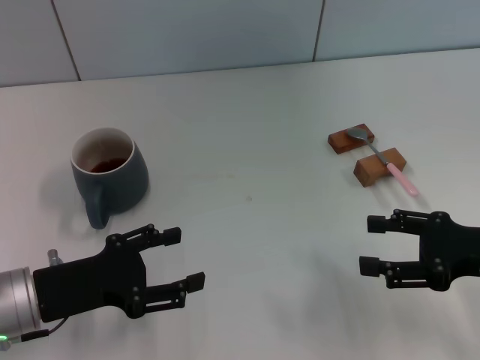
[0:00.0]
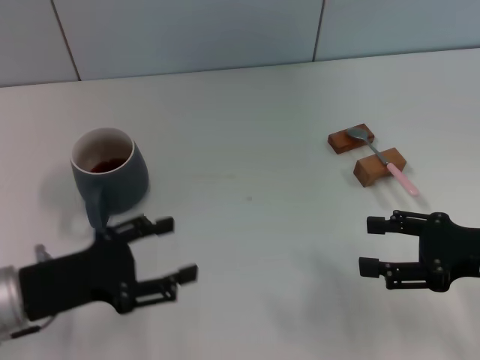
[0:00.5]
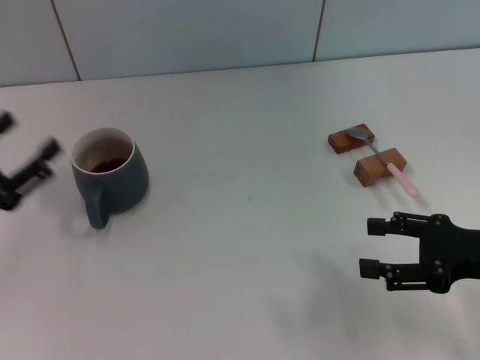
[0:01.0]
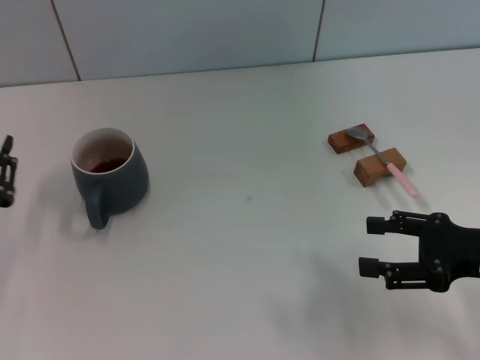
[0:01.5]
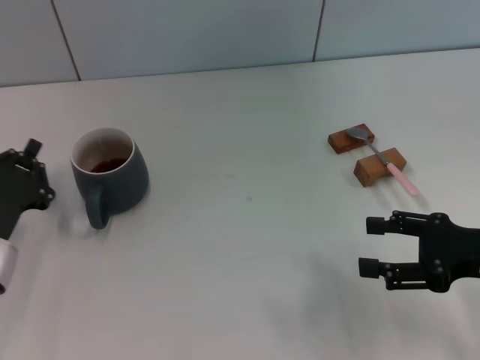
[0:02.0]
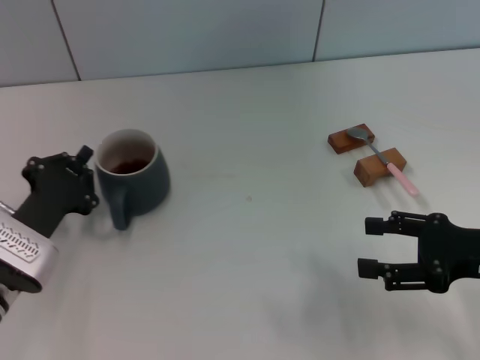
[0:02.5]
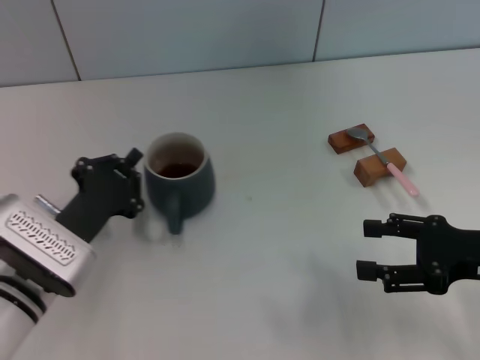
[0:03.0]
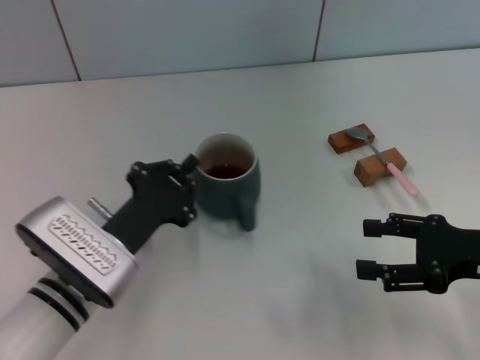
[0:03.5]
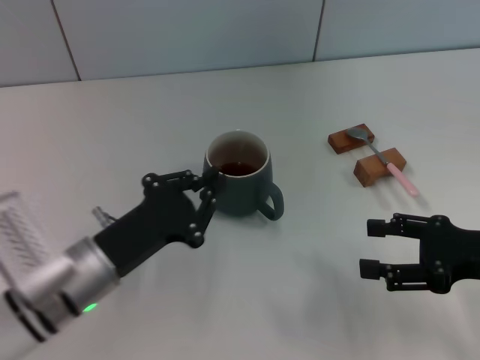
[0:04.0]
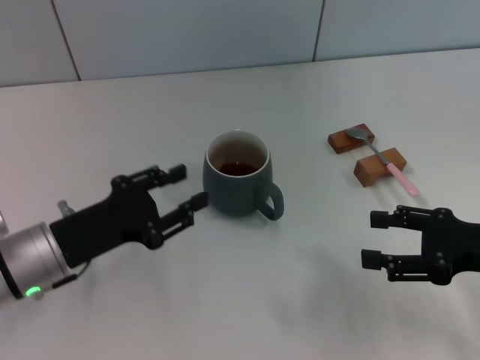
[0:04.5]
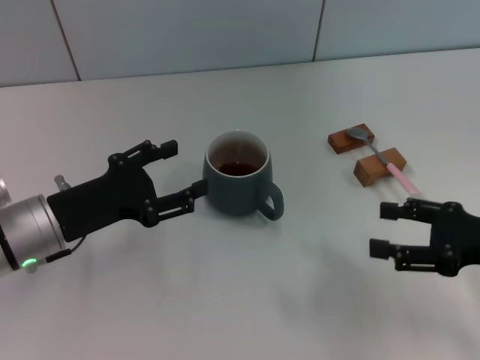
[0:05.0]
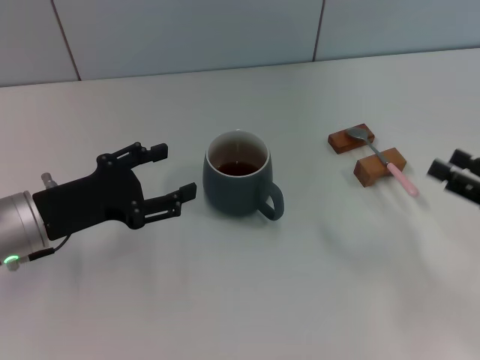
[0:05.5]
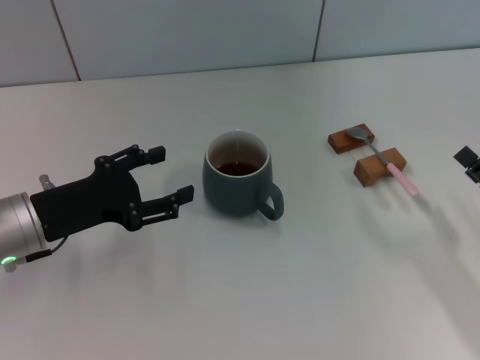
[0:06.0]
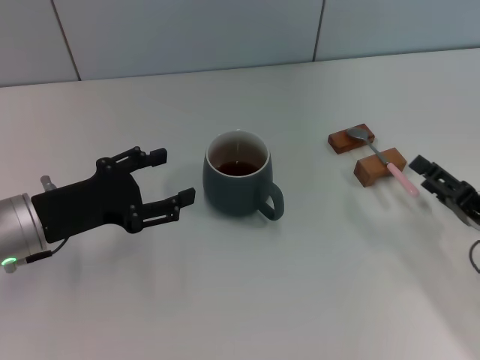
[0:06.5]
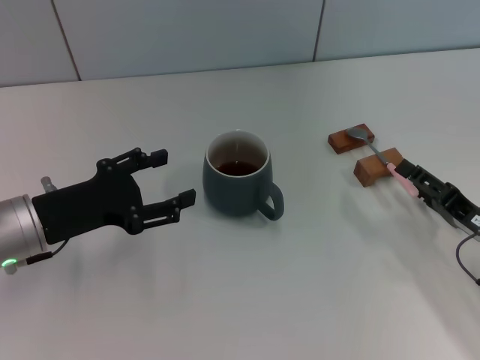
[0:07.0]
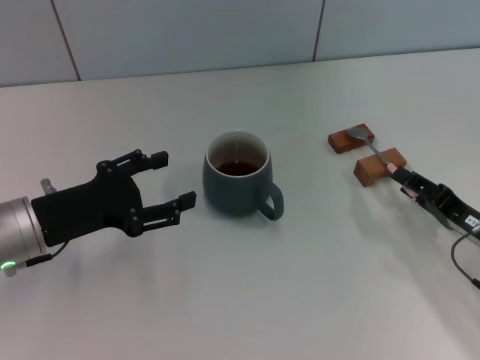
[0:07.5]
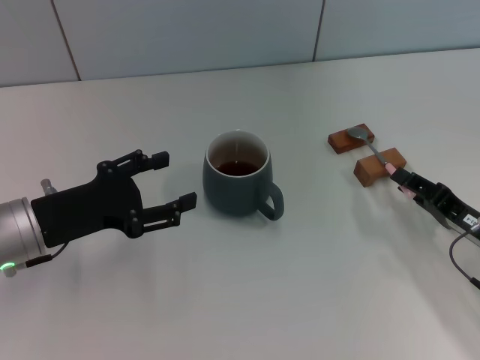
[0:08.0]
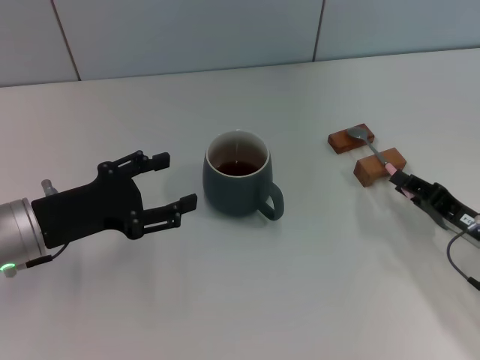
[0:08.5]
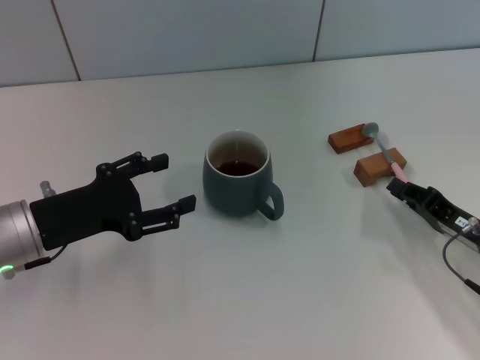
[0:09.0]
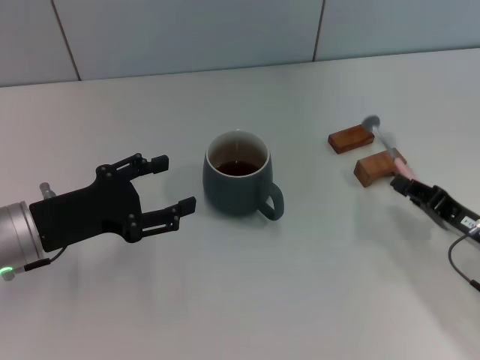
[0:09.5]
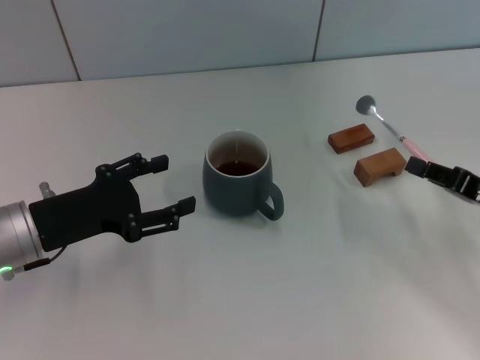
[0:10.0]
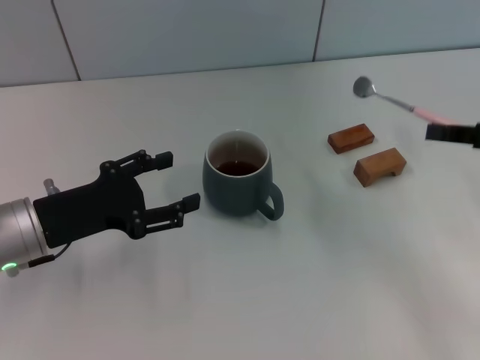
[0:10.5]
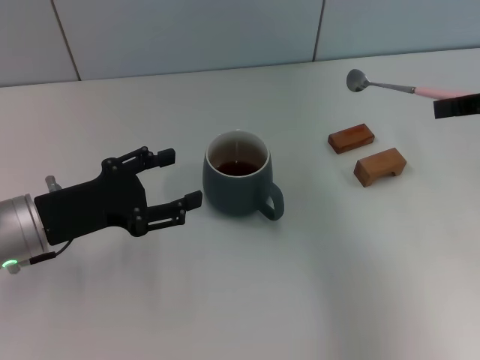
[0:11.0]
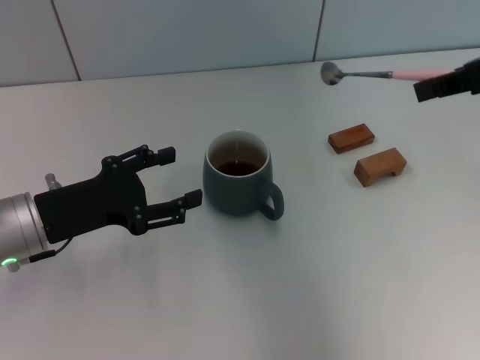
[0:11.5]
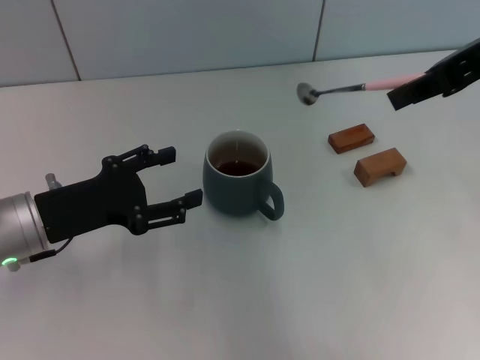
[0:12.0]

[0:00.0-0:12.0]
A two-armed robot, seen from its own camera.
Task of the whole recording: Move the grey cup to the center, lift the pink spoon, stir it three times in the cup, and put the spoon into the cup.
Step, 0:00.0 to 0:04.0: Move the cup with coffee to the center of view with the left gripper.
Step, 0:04.5 to 0:09.5: Pick up the spoon with the right gripper.
0:00.0 to 0:02.0: The left gripper moves roughly 10 cm to the left and comes back, and closes up.
0:02.0 to 0:04.0: The left gripper heads to the right, covering about 10 cm.
0:04.0 to 0:06.0: The left gripper moves to the left, approximately 5 cm, and opens up, while the right gripper travels downward by approximately 5 cm.
0:06.0 to 0:08.0: The right gripper changes place by roughly 5 cm, and closes.
0:08.0 to 0:10.0: The right gripper shifts approximately 5 cm upward, and closes its fingers.
0:10.0 to 0:12.0: The right gripper moves upward, some 25 cm.

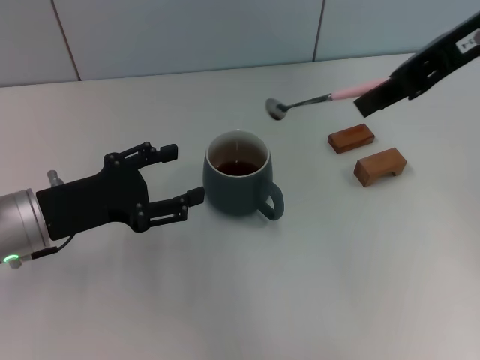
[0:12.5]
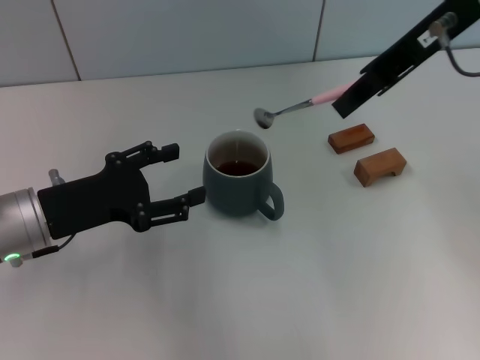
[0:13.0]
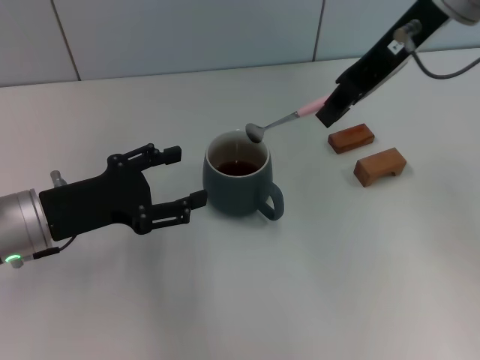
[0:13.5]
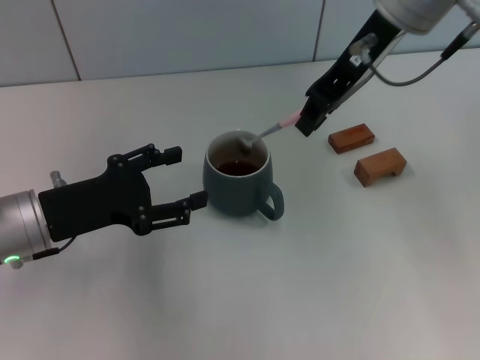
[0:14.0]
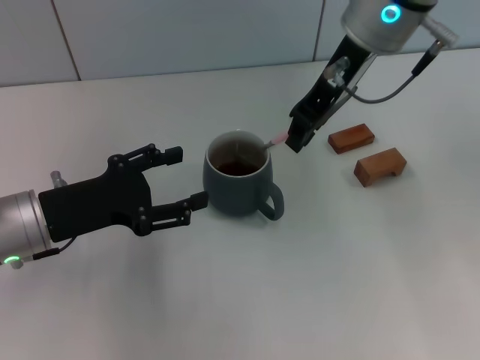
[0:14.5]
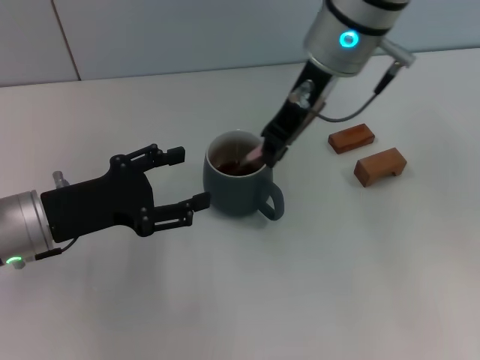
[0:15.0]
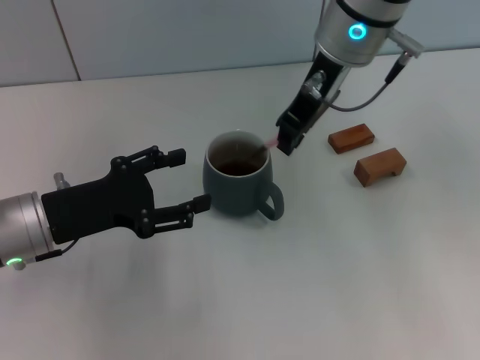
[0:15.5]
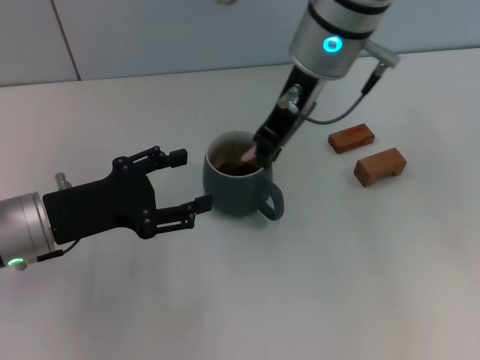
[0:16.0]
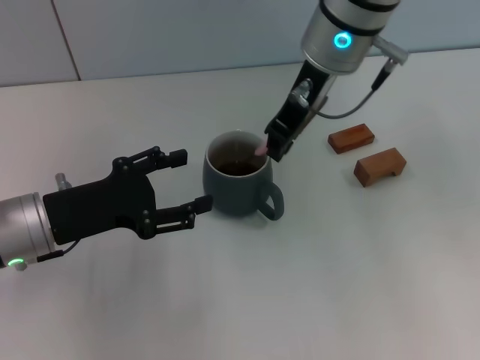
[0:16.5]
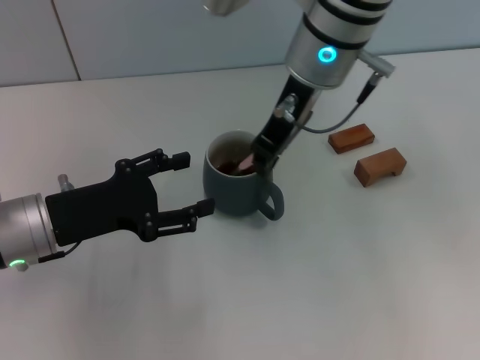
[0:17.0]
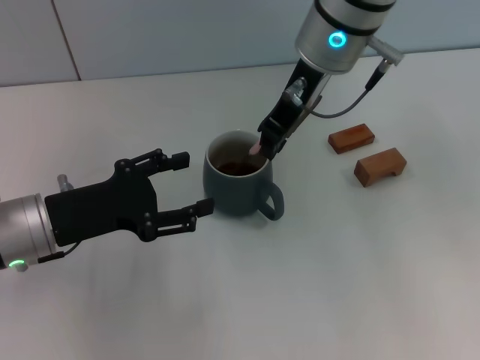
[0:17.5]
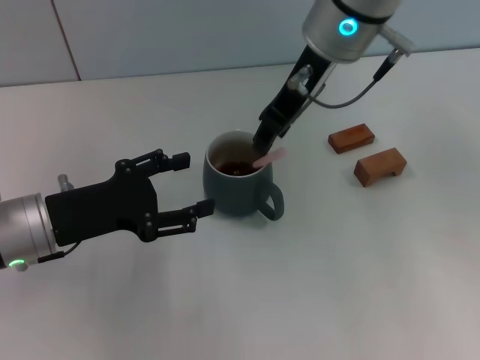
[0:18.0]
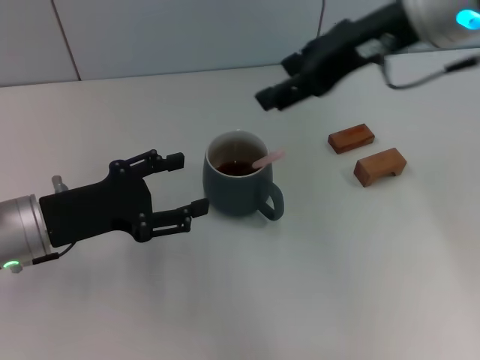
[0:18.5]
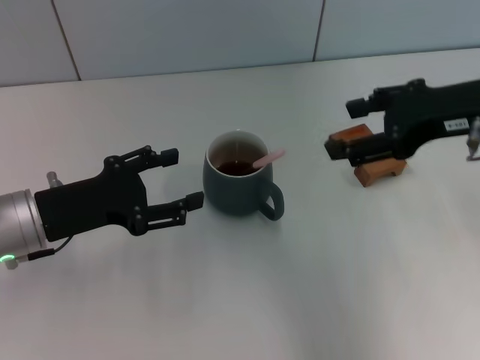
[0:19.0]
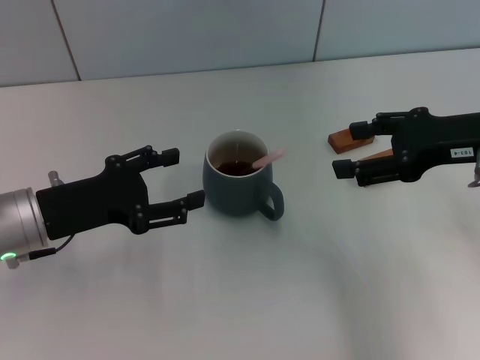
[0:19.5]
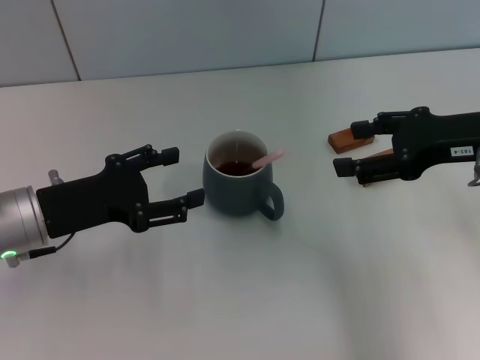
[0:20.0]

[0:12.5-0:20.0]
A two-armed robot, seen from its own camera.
Task of the whole recording: Move the grey cup to the center, lift the pink spoon, stir it three times in the cup, and put the spoon into the cup.
Step, 0:12.5 to 0:18.5: Stir the coffee in the cup with the right gripper.
0:12.5 to 0:14.5: The right gripper travels to the left, forward and downward by some 15 cm.
0:14.5 to 0:18.0: There are only small adjustments of the grippers.
0:18.0 to 0:20.0: The right gripper travels to the right, backward and downward by some 20 cm, and opens up.

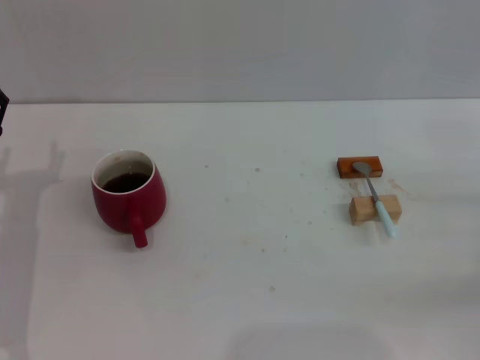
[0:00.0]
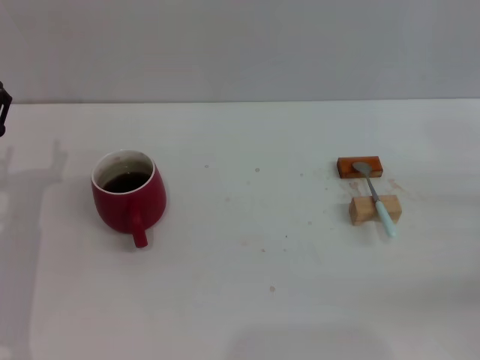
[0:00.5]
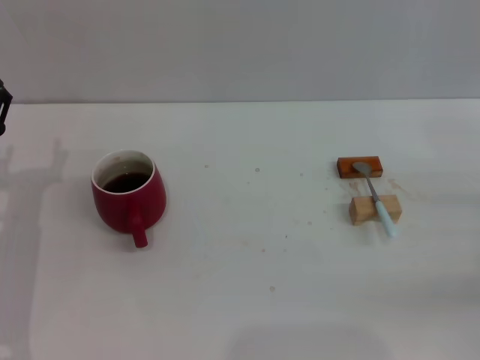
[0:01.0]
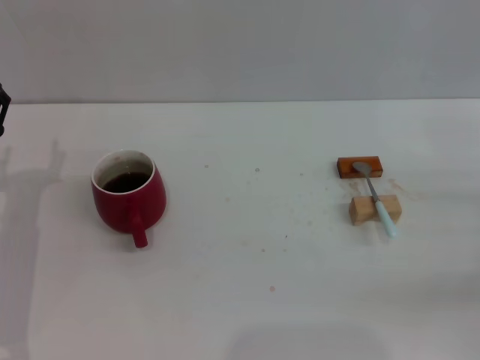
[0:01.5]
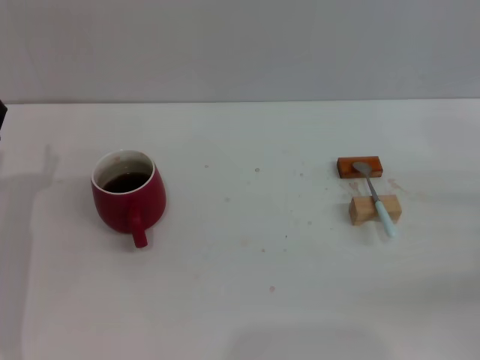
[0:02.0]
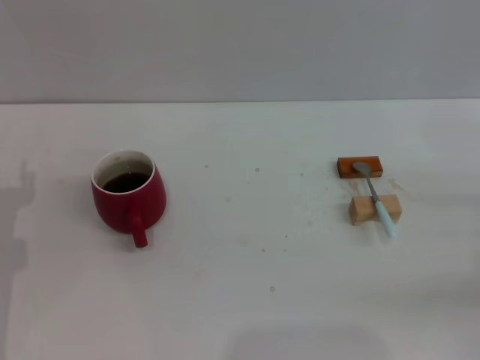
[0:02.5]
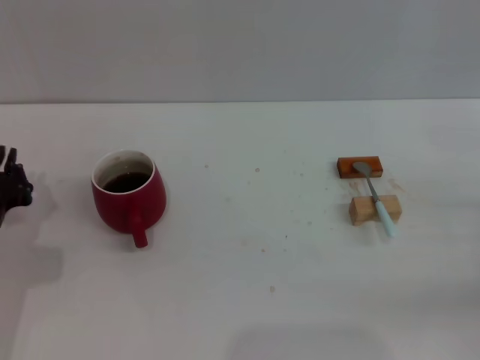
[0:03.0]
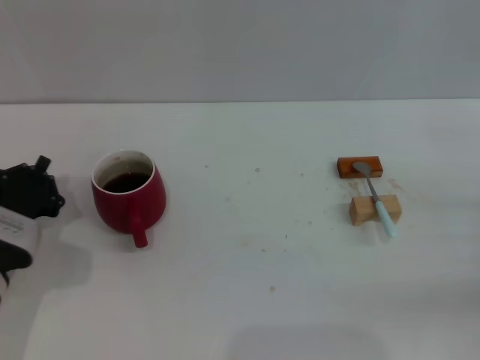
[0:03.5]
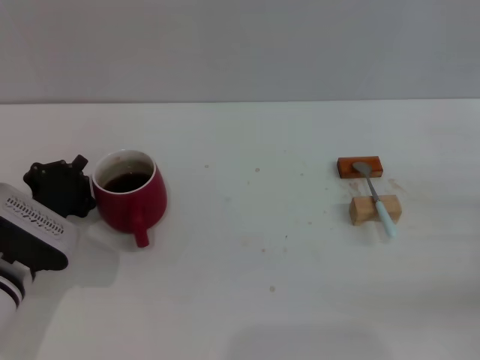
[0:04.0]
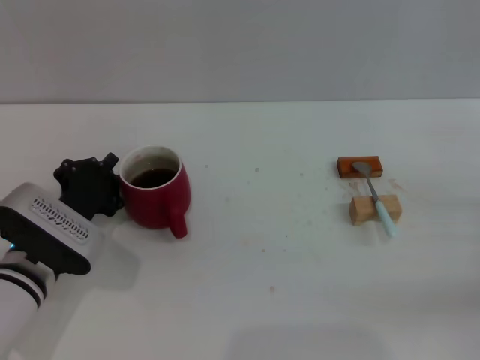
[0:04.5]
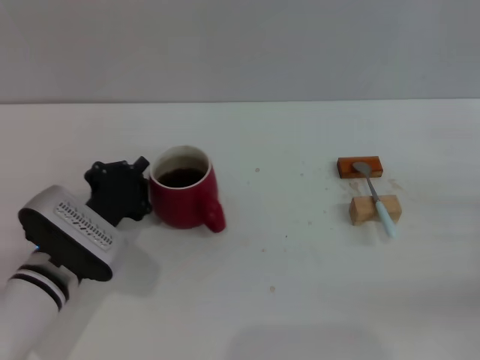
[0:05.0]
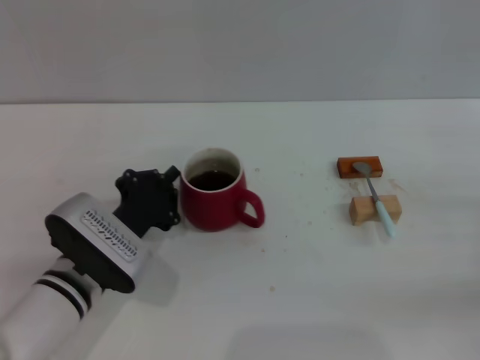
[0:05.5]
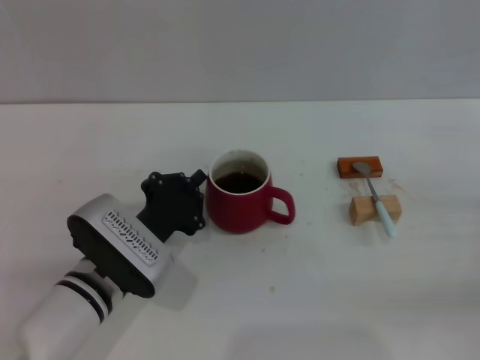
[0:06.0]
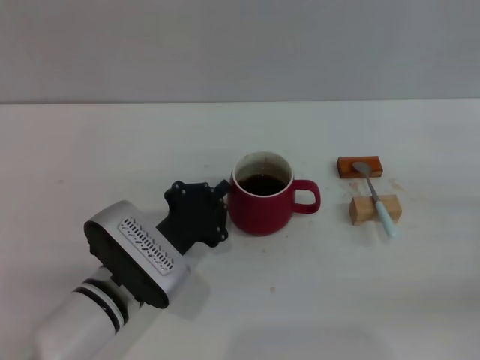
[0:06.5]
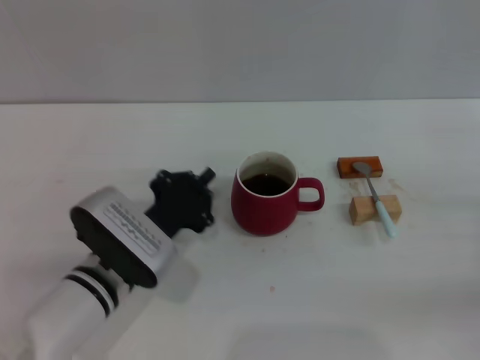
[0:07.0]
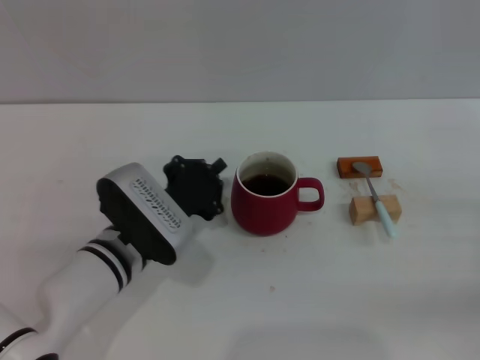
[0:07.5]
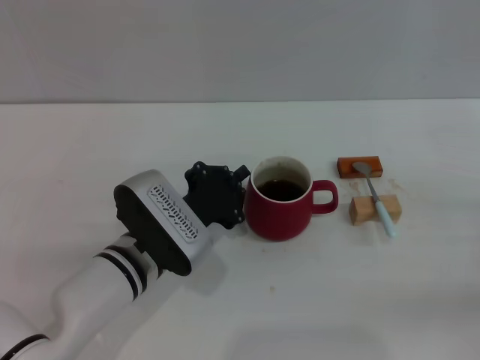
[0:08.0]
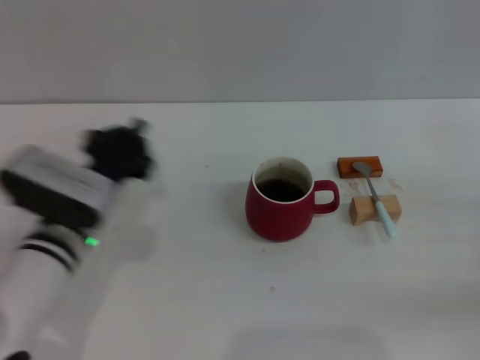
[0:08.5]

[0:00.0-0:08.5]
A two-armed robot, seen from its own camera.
Task of the whole recording: Move the red cup to the center, lift the blue spoon, stir it three times in the cup, and put the spoon into the cup.
Step, 0:00.0 to 0:08.0: Move the cup with coffee to the center of view with the left gripper.
0:00.0 to 0:02.0: Both grippers stay put.
0:02.0 to 0:04.0: The left gripper shifts by roughly 5 cm, and closes.
0:04.0 to 0:06.5: The left gripper travels to the right by about 10 cm.
0:06.5 to 0:08.5: The left gripper moves to the left, some 5 cm.
